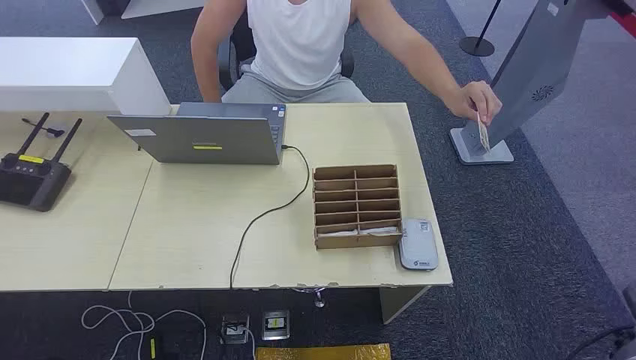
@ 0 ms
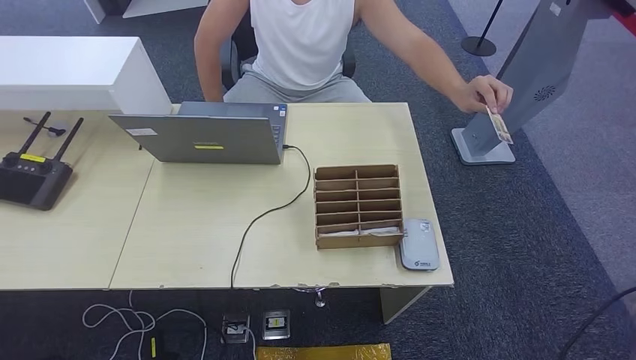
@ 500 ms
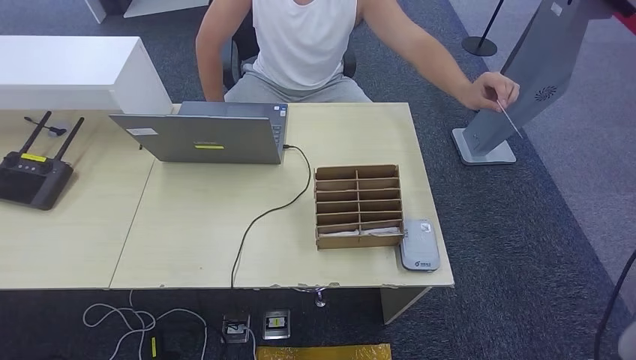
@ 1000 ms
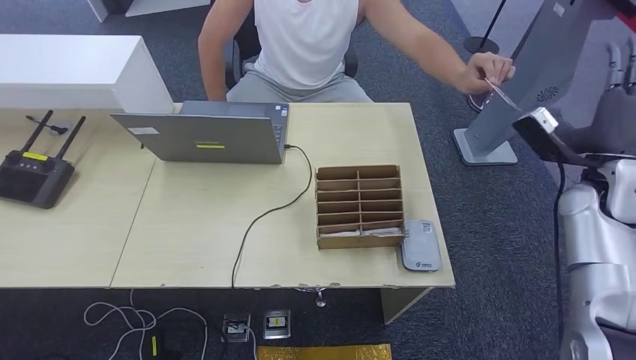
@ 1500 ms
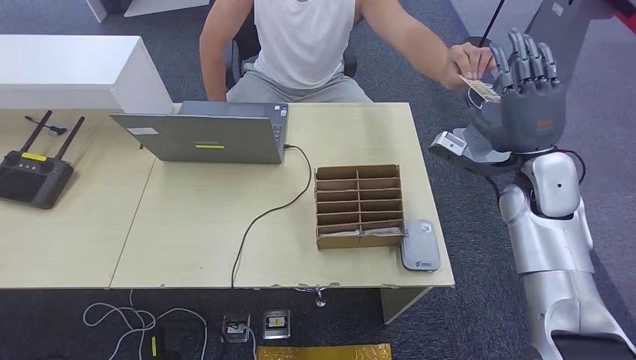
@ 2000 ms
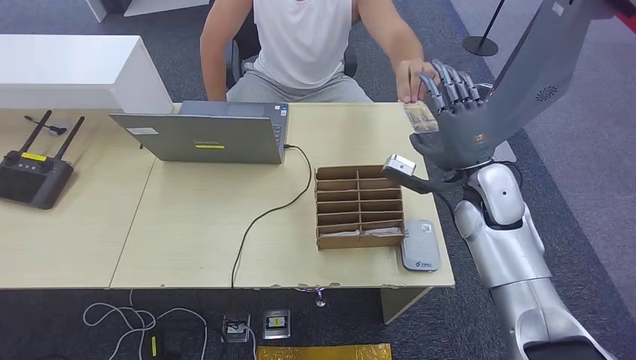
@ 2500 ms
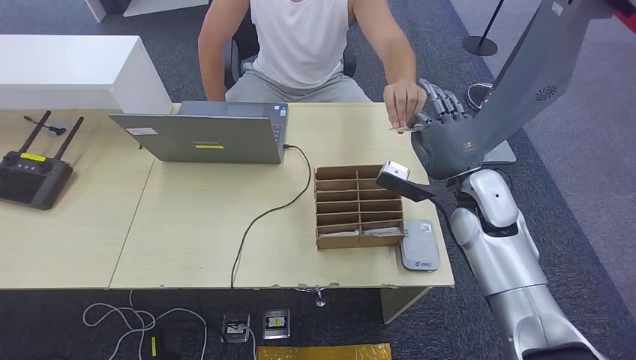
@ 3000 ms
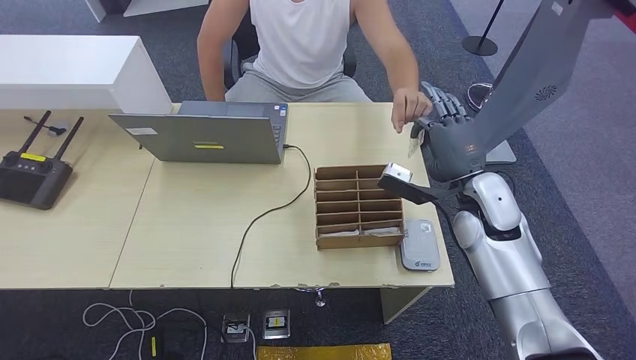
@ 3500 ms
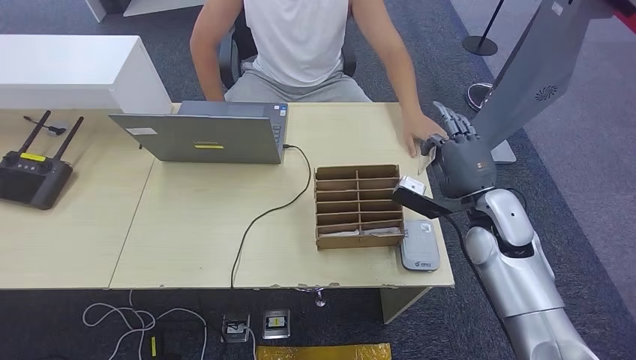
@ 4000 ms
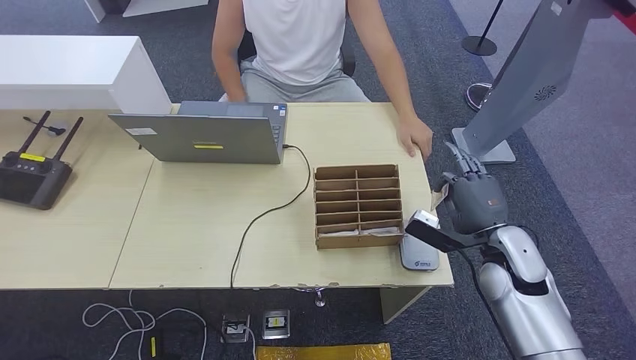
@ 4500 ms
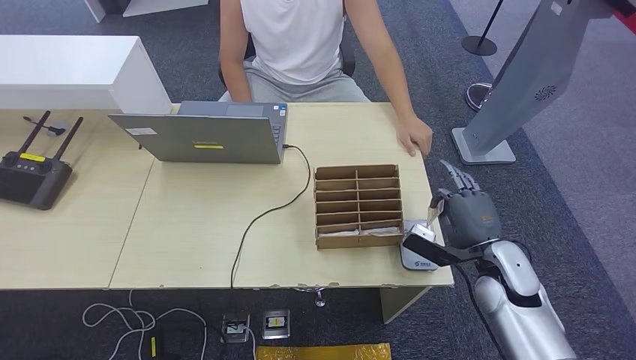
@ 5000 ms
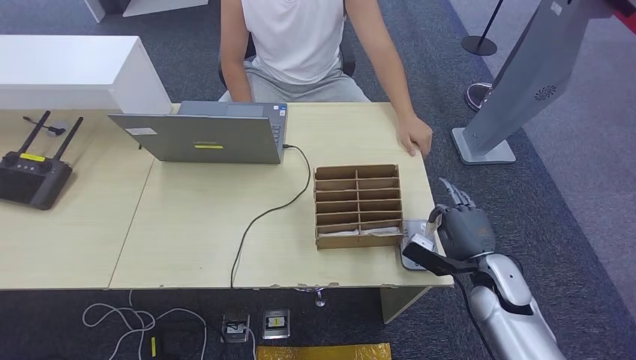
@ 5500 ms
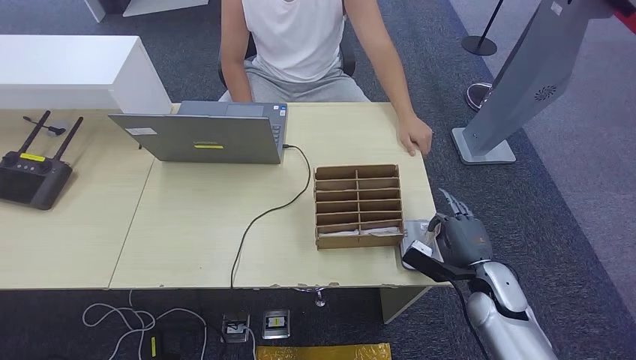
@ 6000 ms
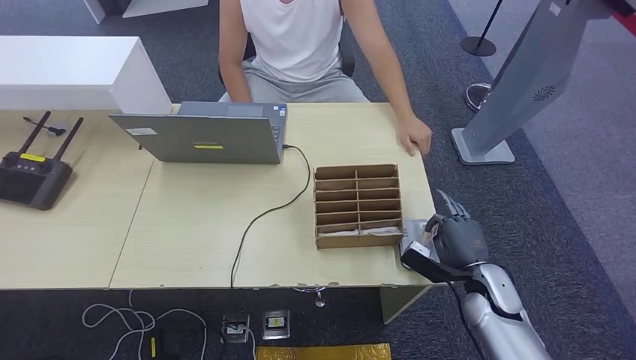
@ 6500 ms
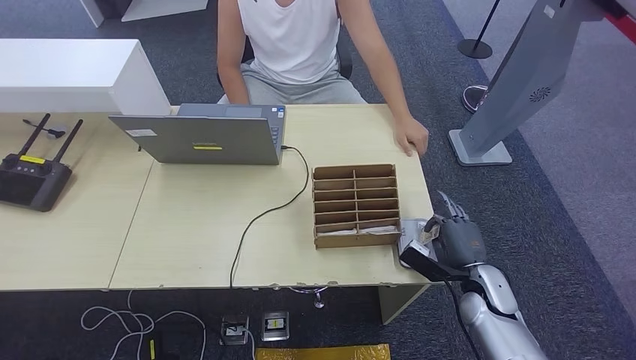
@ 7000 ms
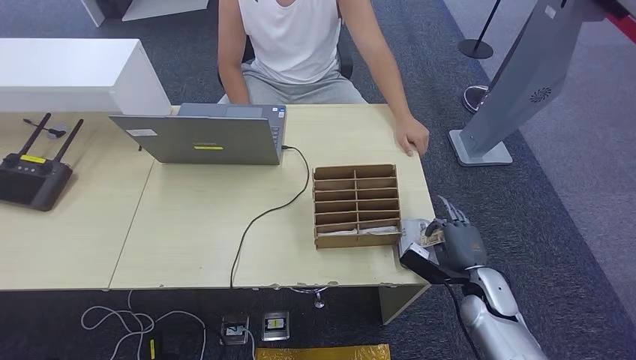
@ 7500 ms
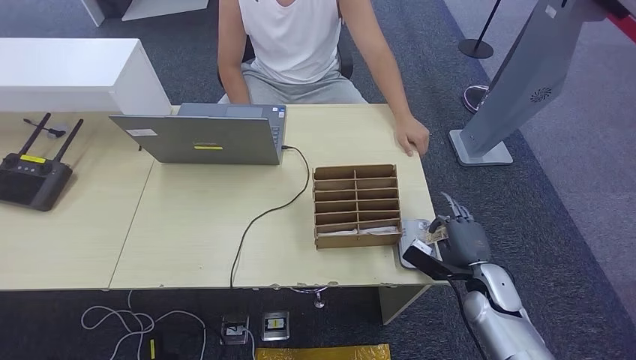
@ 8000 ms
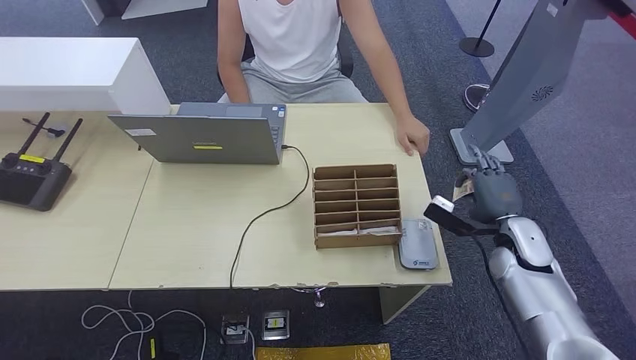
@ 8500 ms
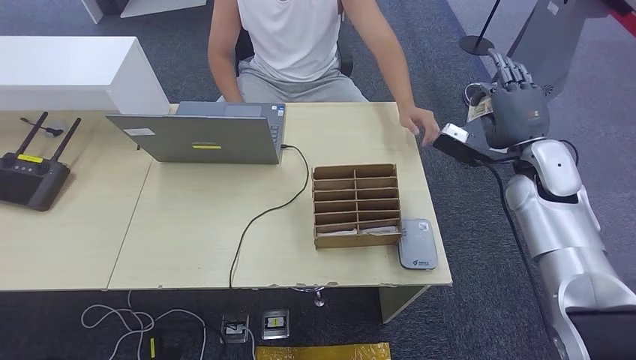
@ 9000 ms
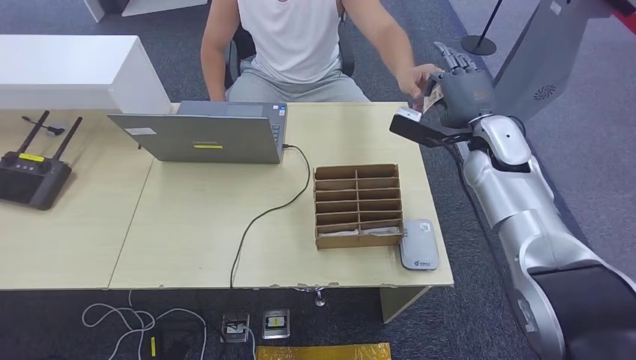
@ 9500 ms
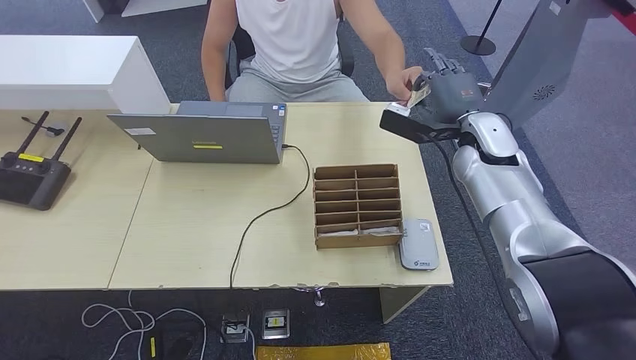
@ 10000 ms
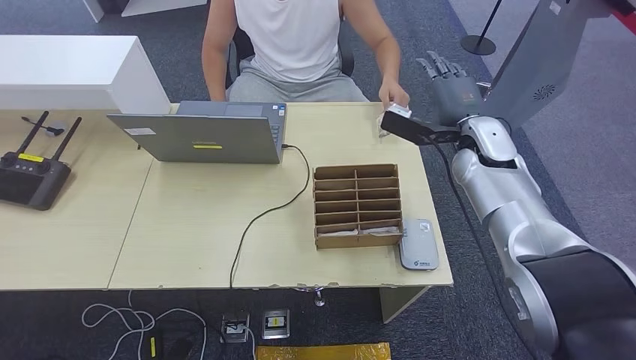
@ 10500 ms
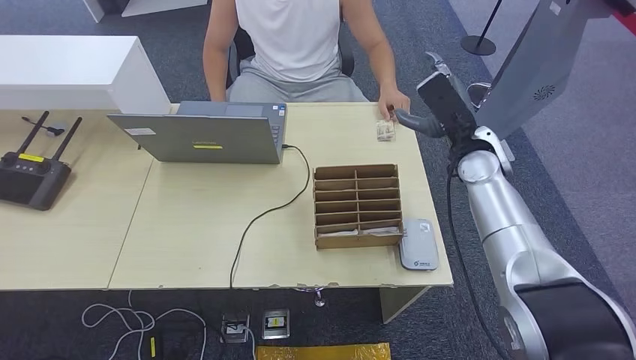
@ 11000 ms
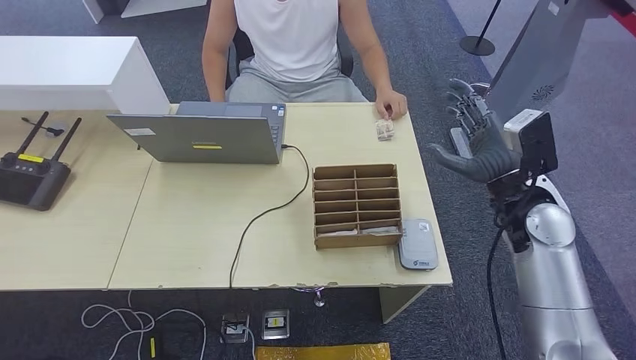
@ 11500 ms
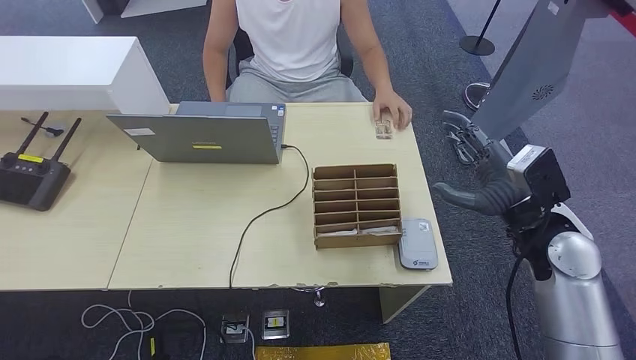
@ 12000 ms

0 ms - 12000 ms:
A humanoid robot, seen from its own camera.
Step, 0 ms - 3500 ms: Take the ID card from the person's hand.
Step, 4000 ms - 6000 ms: Place the ID card on the card reader.
Step, 6500 ms - 10000 ms: Hand the ID card to the person.
2000 ms - 4000 ms: The right hand is displaced downward and to the left by some 10 cm.
4000 ms - 6000 ms: The right hand goes approximately 15 cm downward and backward.
6000 ms - 8000 ms: The hands stay close to where they were, moving slightly.
8000 ms - 10000 ms: The right hand moves upward and forward, about 30 cm.
10000 ms - 12000 ms: The right hand moves backward, approximately 15 cm.

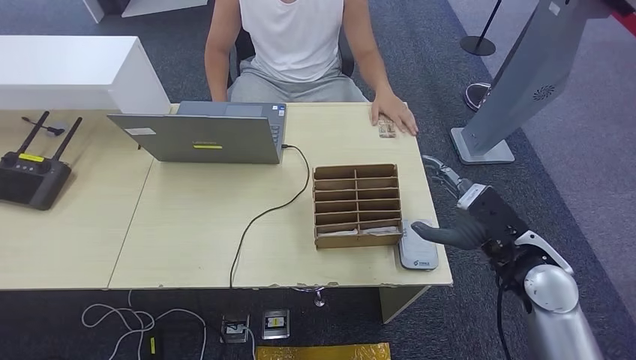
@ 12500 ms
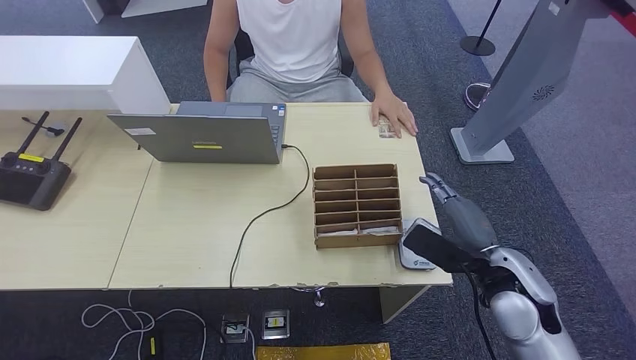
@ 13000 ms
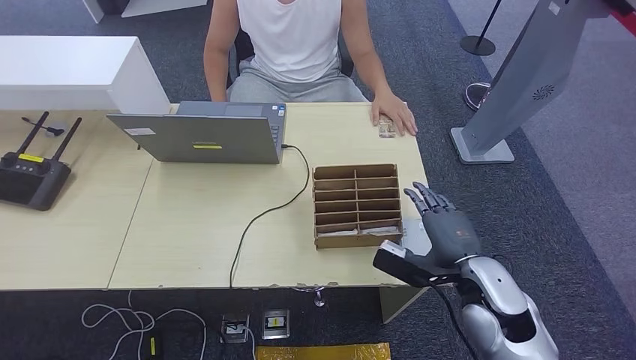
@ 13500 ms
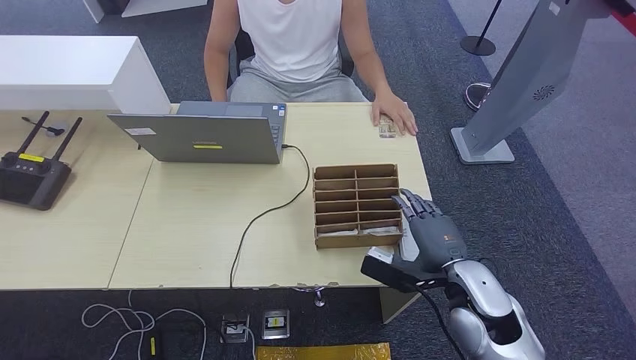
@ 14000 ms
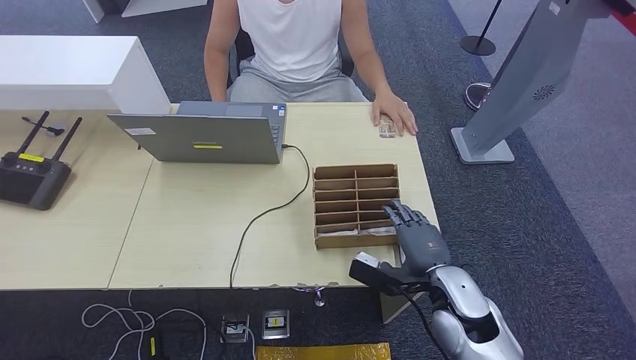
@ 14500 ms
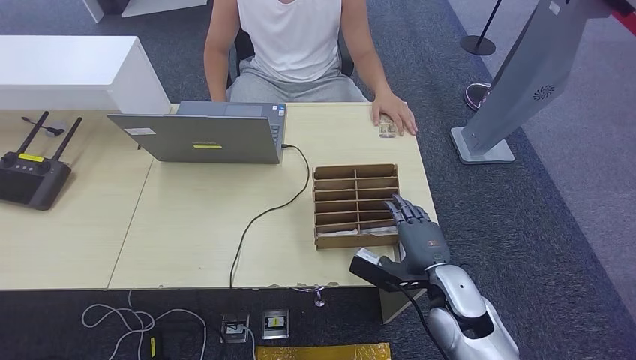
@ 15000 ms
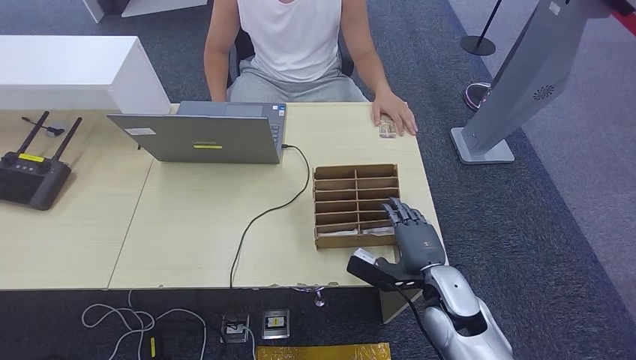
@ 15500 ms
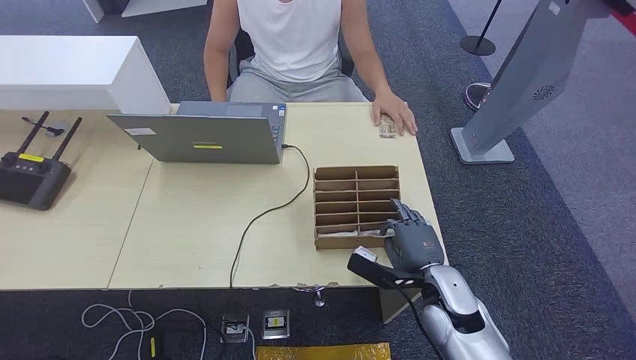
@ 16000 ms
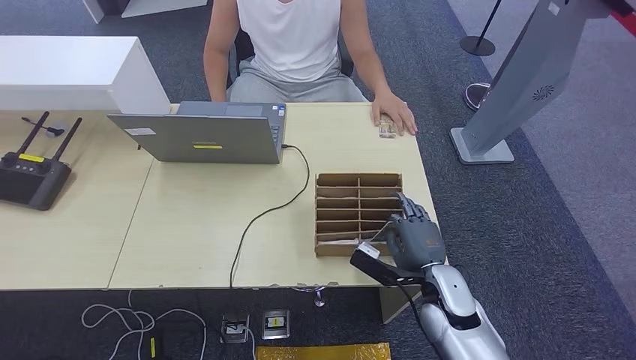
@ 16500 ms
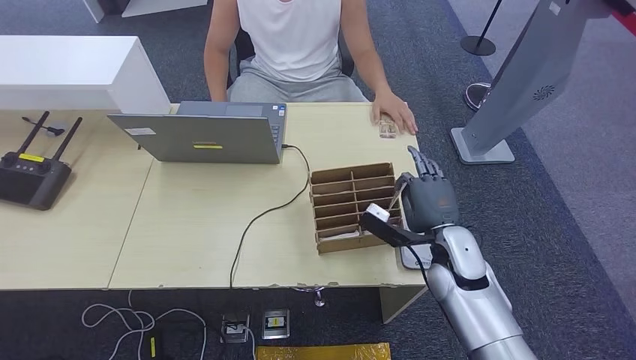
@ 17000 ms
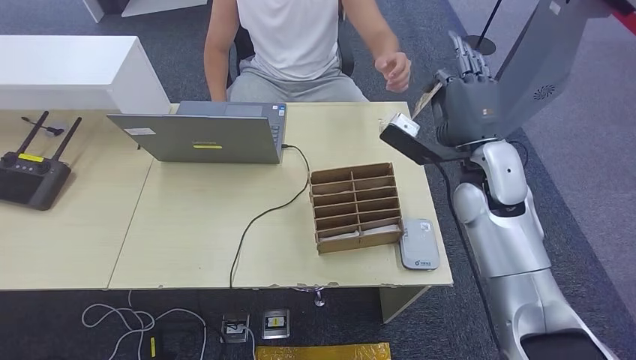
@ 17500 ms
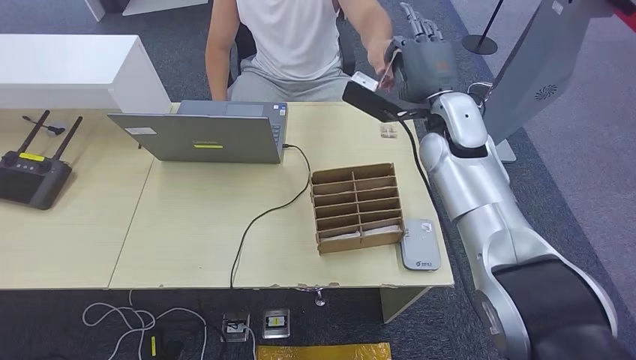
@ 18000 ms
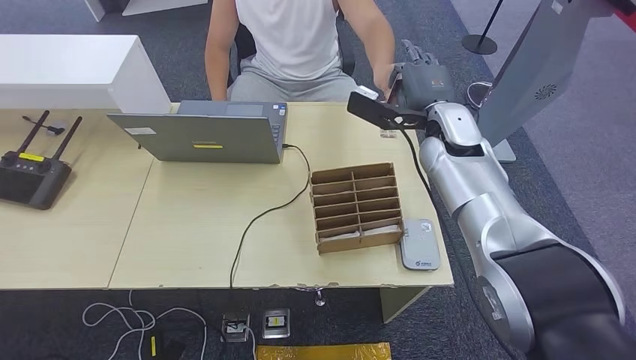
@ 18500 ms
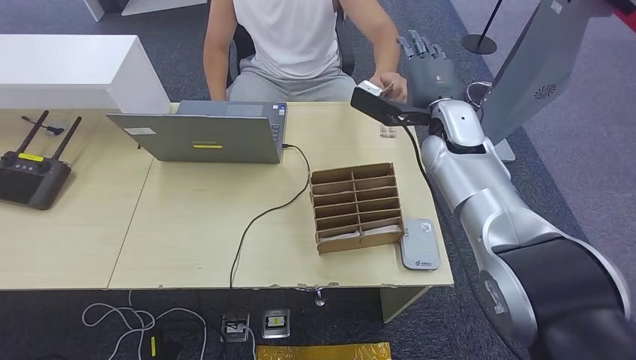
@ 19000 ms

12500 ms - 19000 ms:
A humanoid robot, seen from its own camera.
Step, 12500 ms - 16500 ms: Pick up the room key from the key card box.
Step, 17500 ms - 19000 ms: Hand the room key to the person.
12500 ms - 14500 ms: The right hand is displaced to the left and downward by roughly 10 cm.
14500 ms - 17000 ms: The right hand goes about 5 cm forward.
17000 ms - 19000 ms: The right hand is displaced upward and forward by roughly 20 cm.
